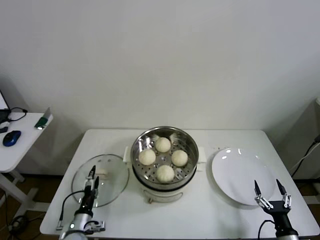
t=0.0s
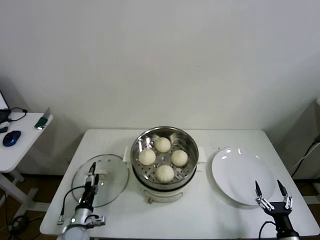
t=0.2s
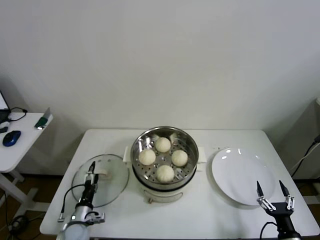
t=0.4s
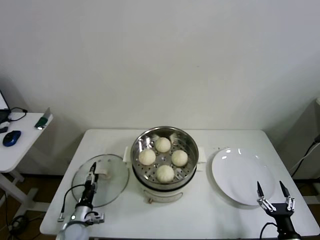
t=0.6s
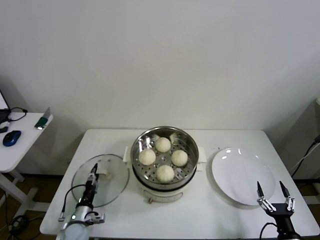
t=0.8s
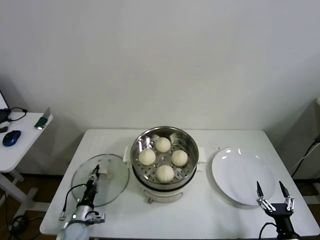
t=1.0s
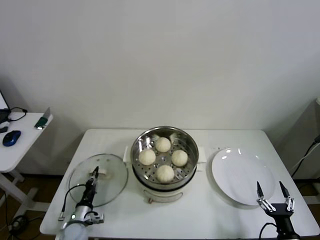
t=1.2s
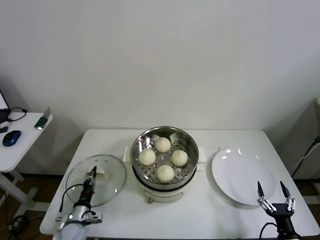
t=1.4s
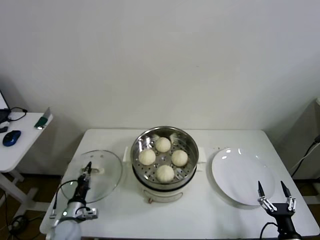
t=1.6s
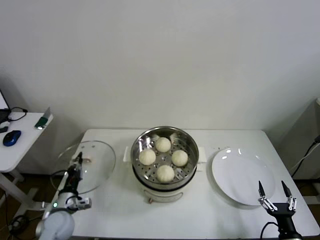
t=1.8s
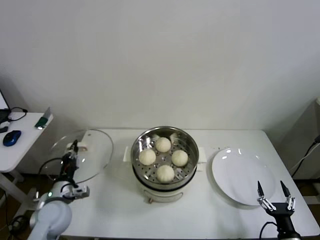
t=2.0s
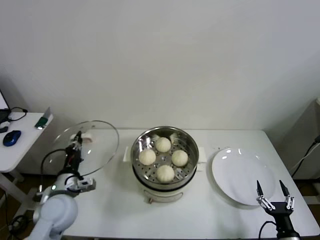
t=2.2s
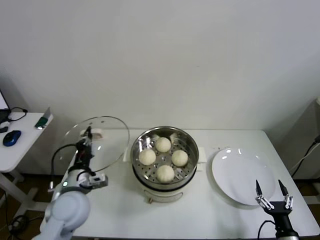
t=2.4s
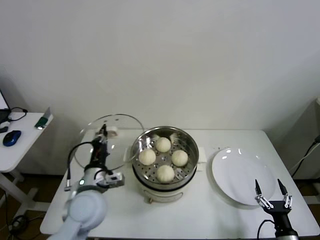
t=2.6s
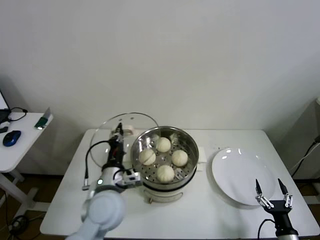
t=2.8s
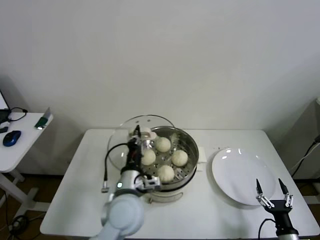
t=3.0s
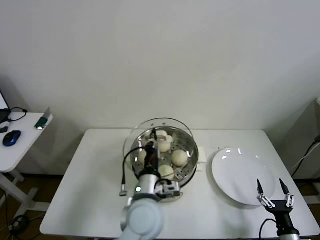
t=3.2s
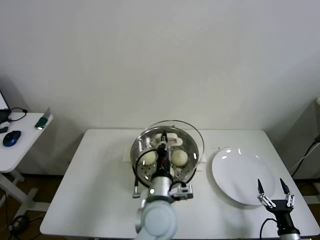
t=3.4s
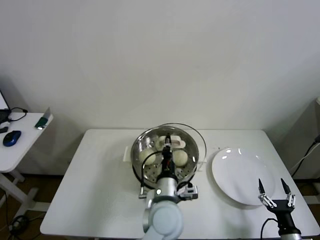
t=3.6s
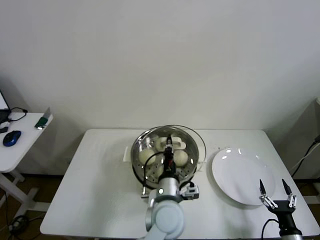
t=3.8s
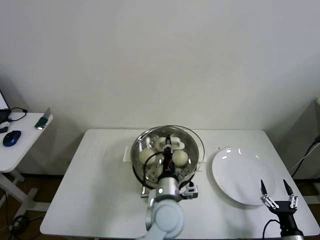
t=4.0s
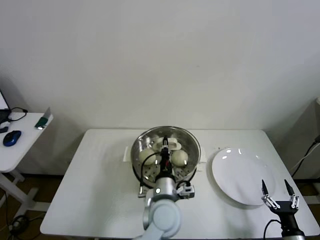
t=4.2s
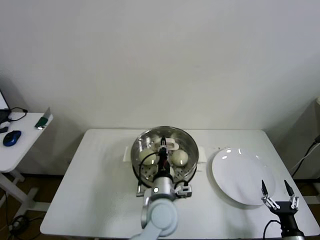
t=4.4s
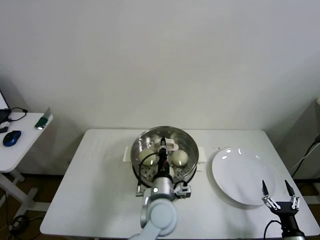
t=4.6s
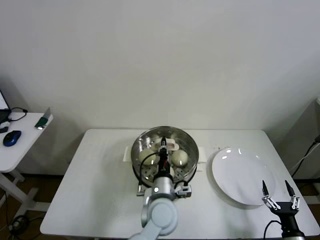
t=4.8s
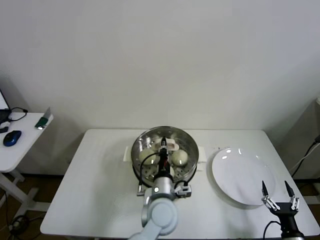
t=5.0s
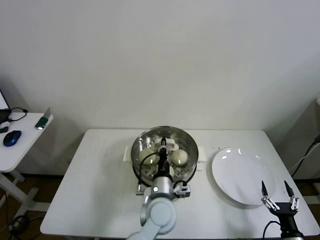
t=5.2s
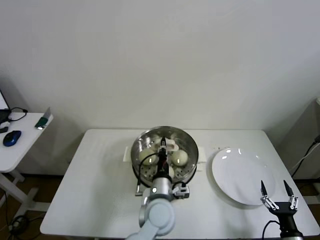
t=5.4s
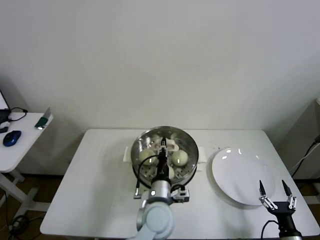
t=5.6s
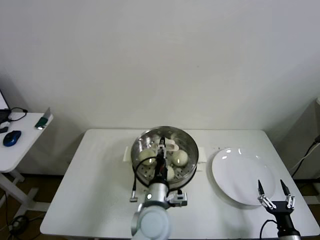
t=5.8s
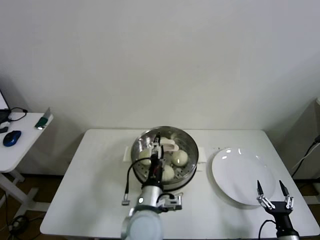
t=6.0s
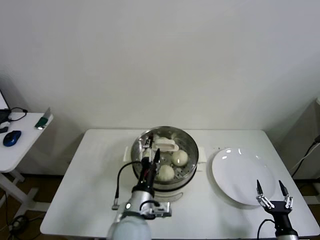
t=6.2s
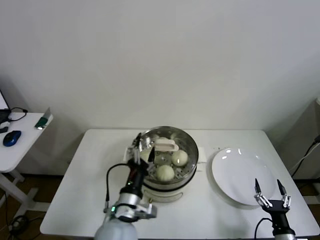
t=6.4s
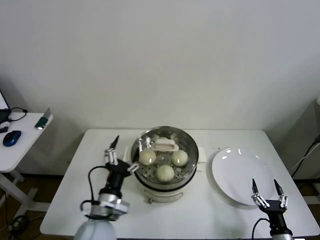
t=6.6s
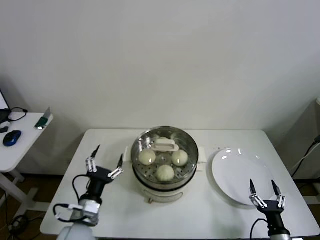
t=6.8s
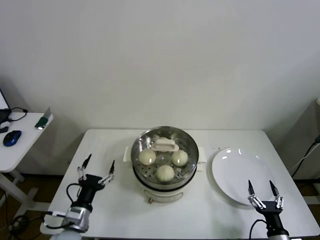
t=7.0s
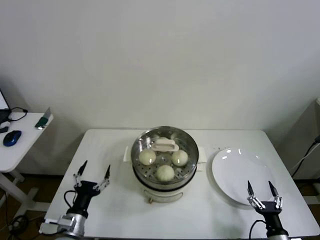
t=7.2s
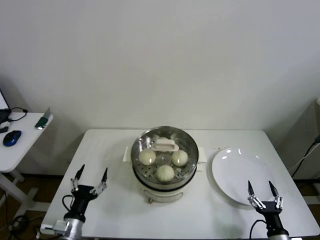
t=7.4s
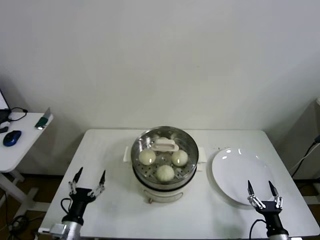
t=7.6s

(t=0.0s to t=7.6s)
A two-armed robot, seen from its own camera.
Step, t=1.4s - t=5.6s: Place the pot lid on the steamer with left gripper.
t=0.0s - t=1.6s: The left gripper shifts by some 5 cm, and closes its fingers.
t=1.6s - t=3.0s: The left gripper travels to the right and upward by roughly 30 cm.
t=3.0s - t=4.6s: The left gripper heads to the right and downward, covering approximately 10 cm.
t=4.6s - t=6.0s: The left gripper ends up about 5 cm from where it was, and opens its fingers.
t=6.0s - t=7.6s: The left gripper is displaced to the left and downward by approximately 30 cm.

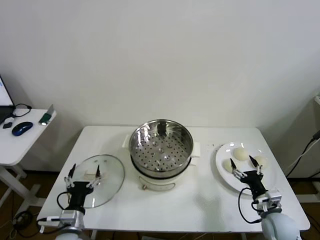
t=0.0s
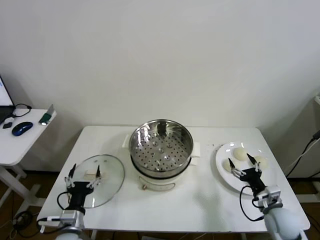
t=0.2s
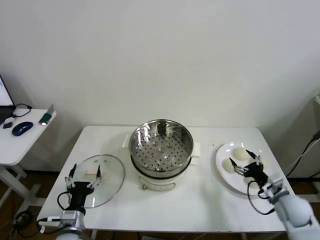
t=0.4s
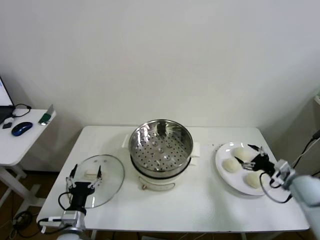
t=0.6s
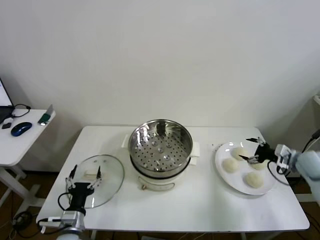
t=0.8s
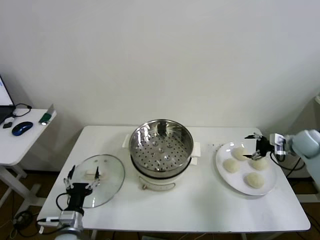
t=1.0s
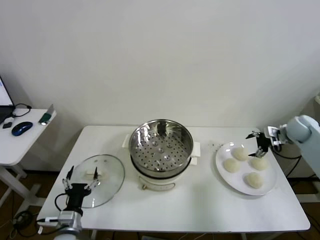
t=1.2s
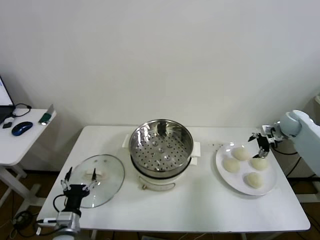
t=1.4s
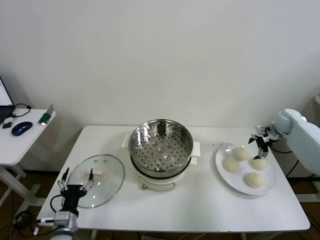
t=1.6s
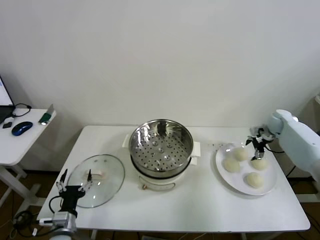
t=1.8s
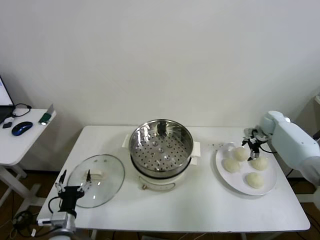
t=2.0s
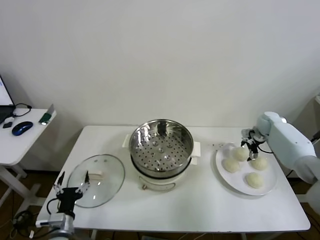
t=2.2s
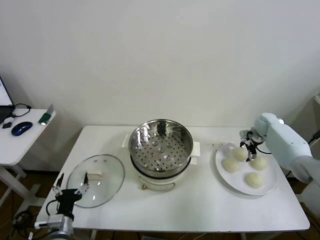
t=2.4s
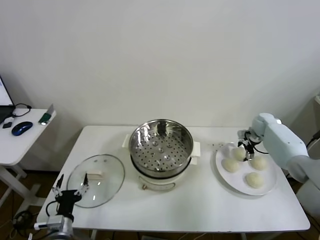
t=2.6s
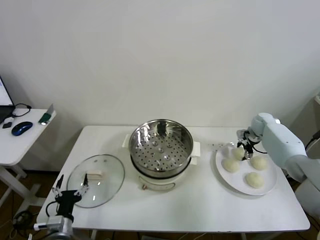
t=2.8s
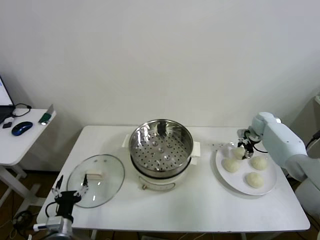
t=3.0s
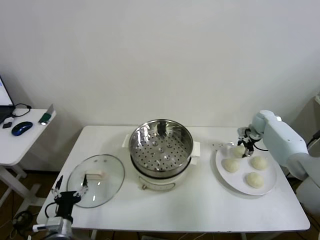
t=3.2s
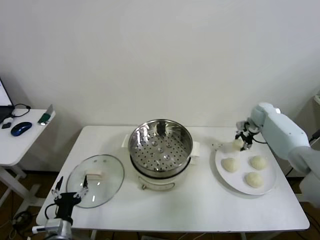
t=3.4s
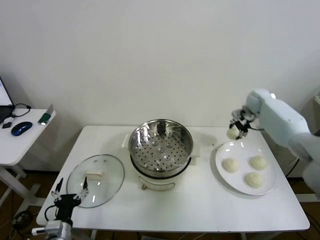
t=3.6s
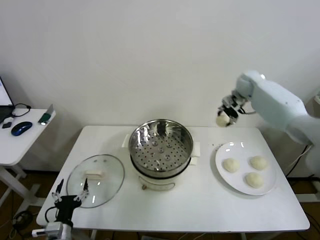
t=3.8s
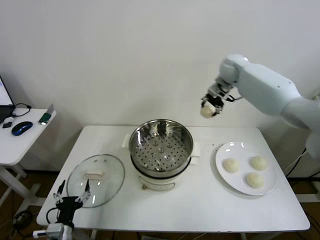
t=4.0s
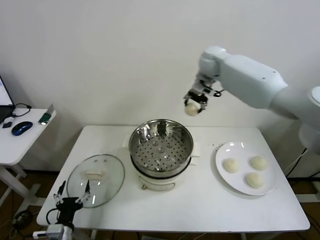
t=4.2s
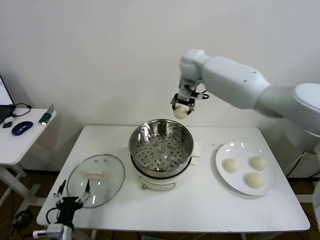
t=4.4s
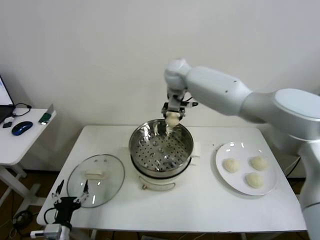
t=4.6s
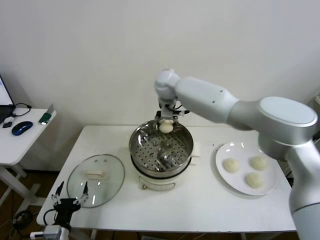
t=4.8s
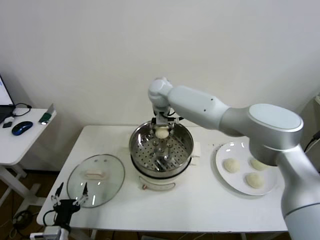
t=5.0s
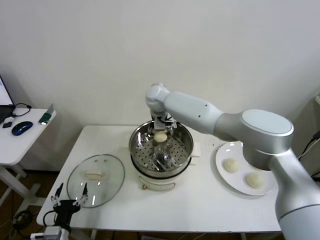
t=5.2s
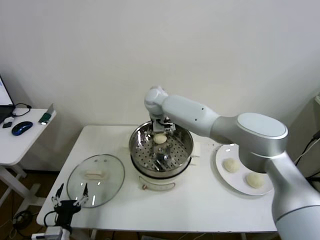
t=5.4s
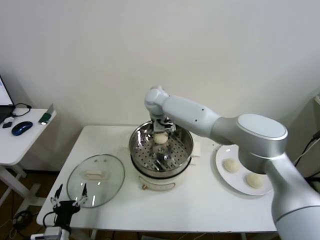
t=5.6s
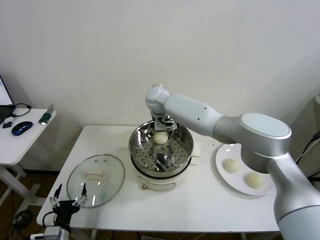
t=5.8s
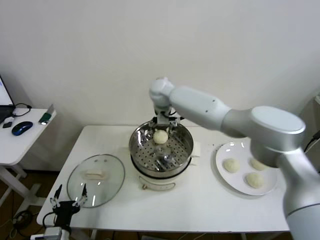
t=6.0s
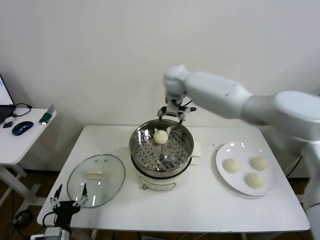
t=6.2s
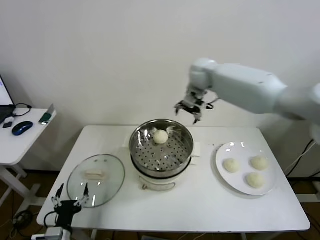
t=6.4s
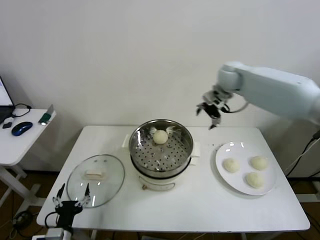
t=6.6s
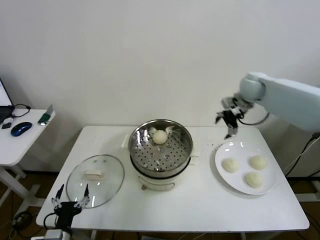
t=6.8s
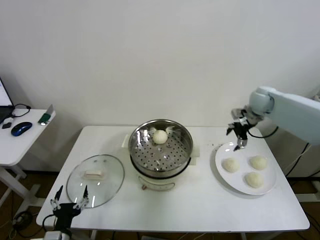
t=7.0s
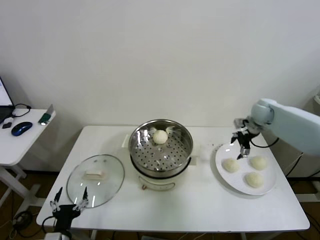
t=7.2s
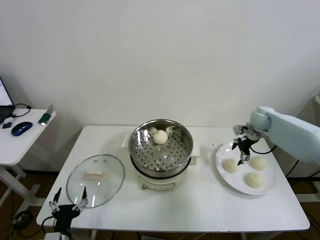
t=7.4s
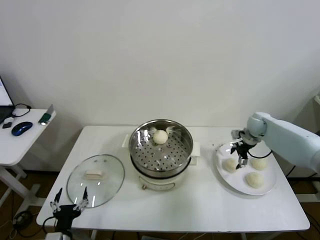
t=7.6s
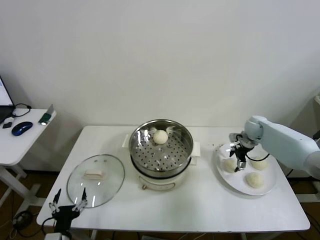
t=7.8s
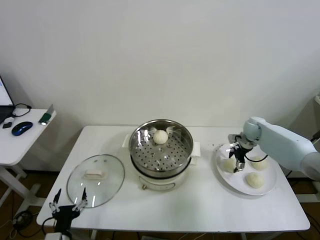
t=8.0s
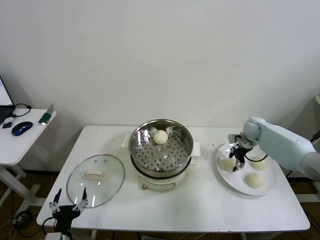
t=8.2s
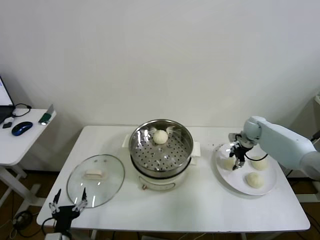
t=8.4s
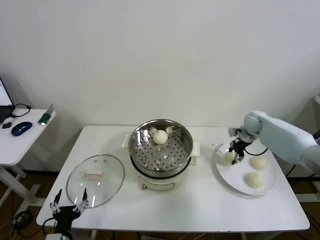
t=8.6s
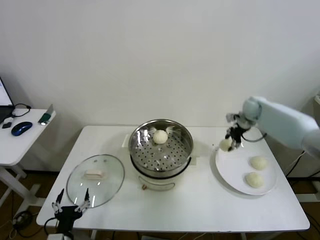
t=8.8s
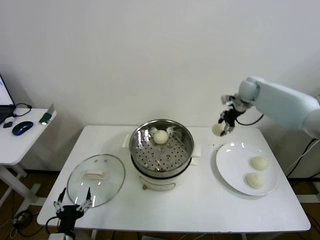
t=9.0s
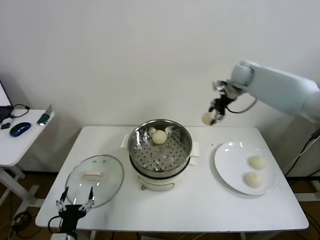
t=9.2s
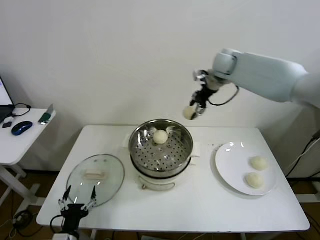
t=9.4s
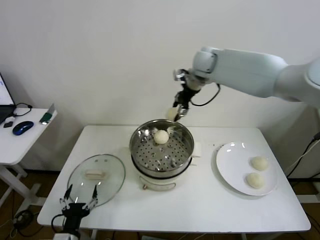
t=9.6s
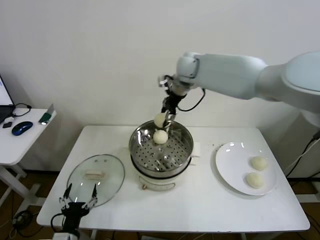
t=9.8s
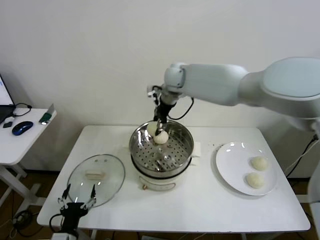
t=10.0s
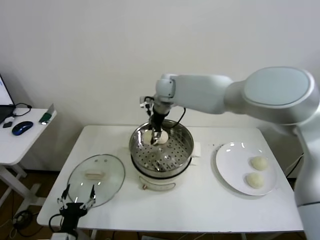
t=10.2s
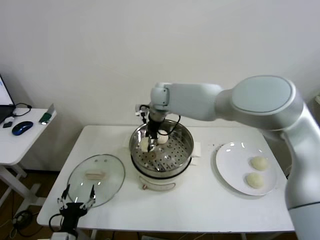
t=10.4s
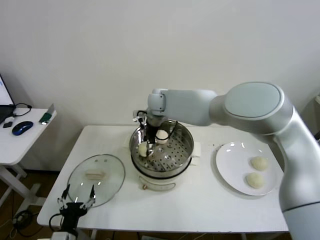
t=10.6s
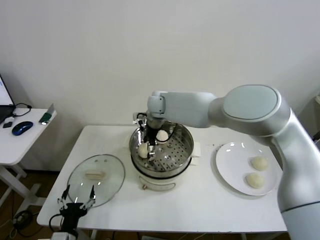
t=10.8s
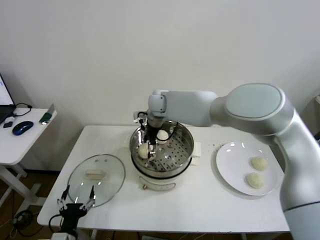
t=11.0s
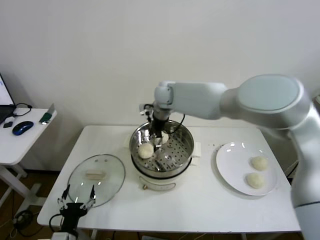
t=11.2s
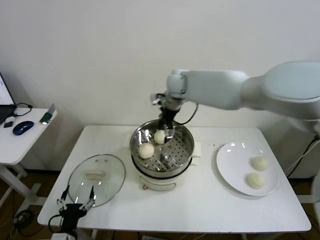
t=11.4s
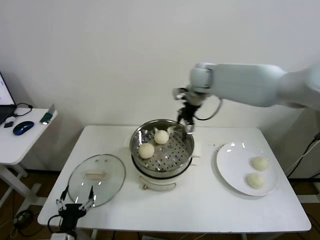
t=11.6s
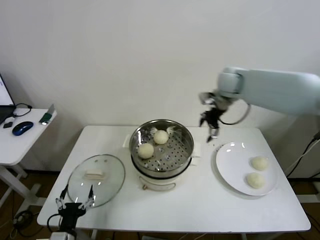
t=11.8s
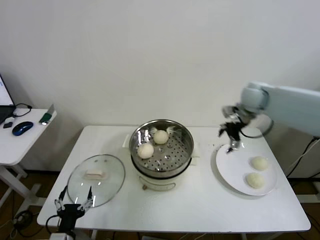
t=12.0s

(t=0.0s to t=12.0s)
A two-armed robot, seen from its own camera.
Step, t=0.0s - t=3.0s: Grasp the baozi in the plate with right gripper.
Step, t=3.2s - t=5.4s: Place the baozi on the steamer with right gripper.
Step, t=5.6s - t=8.2s: Grasp the baozi in the plate with right gripper.
Step, t=8.4s - t=10.8s: Place the baozi on the steamer with right gripper.
t=1.6s - t=3.0s: The right gripper changes place by approximately 5 cm, and closes up.
t=3.0s - t=4.4s: The right gripper goes some 40 cm to the left and upward.
t=4.4s - t=6.0s: The right gripper is displaced to the left and downward by about 10 cm, and opens its fingers.
t=6.0s - t=7.6s: The right gripper moves to the right and downward, some 40 cm.
t=7.6s - t=9.0s: The right gripper heads upward, covering some 15 cm, and closes its fingers.
t=9.0s - t=10.4s: The right gripper is displaced to the left by about 35 cm.
t=10.4s - t=12.0s: The right gripper heads to the right, covering about 35 cm, and opens its fingers.

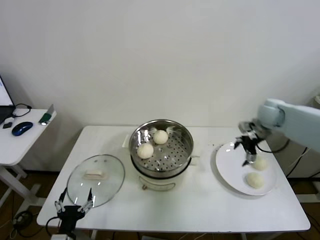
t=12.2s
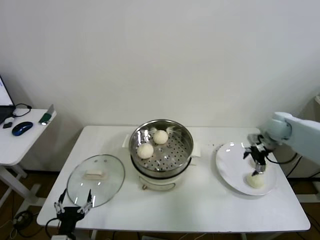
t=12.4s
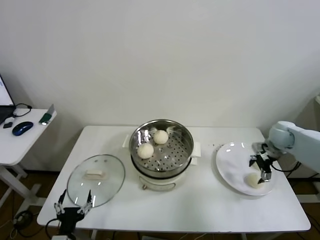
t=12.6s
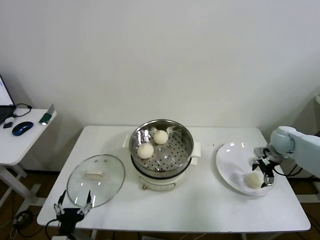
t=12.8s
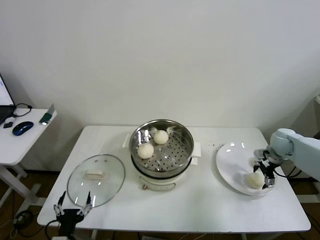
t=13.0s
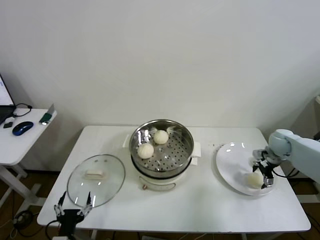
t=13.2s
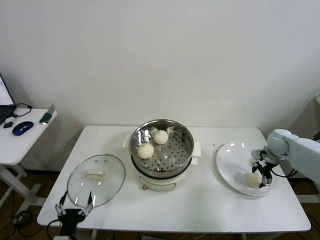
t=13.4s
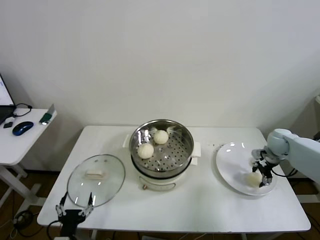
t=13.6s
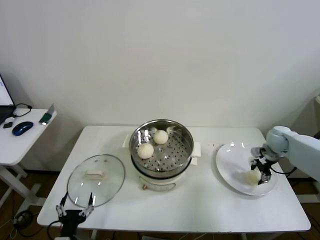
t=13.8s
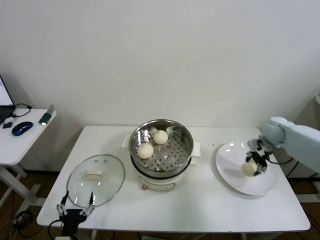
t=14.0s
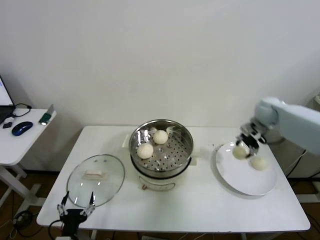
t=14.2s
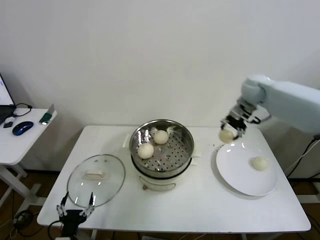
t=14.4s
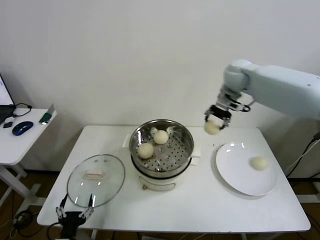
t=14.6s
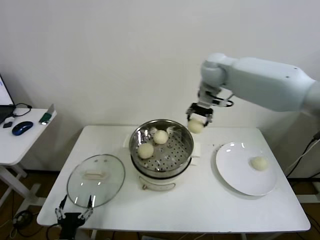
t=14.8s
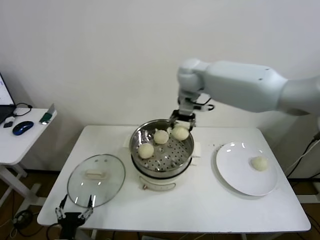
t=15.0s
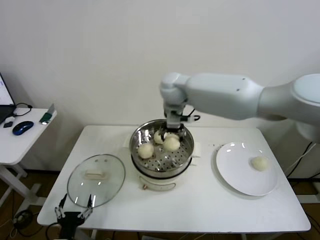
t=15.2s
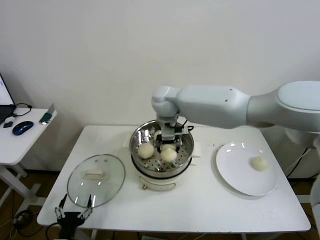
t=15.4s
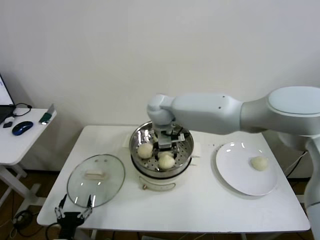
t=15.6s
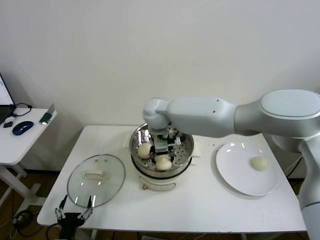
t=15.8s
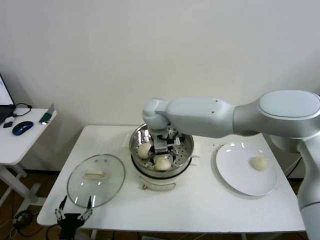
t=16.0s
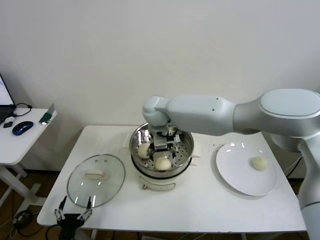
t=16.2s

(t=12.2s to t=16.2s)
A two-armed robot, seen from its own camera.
Step, t=12.2s - t=13.6s: Grasp the baozi in the plate with right gripper.
Step, t=13.8s - t=15.8s: Place the baozi on the steamer with right gripper.
t=12.2s - t=13.6s: The right gripper travels downward and to the right by roughly 15 cm, and closes.
t=13.6s - t=14.8s: The right gripper is displaced to the left and upward by roughly 40 cm.
t=14.8s - t=16.2s: The right gripper is displaced to the left and downward by about 20 cm, and opens up.
